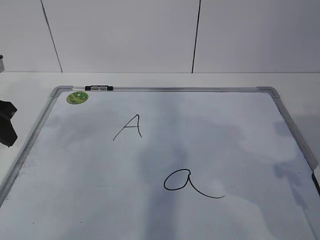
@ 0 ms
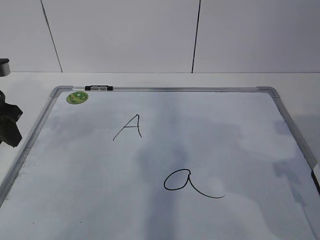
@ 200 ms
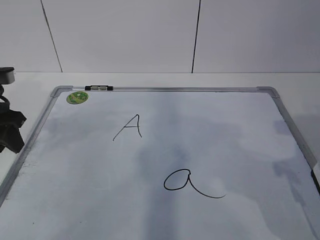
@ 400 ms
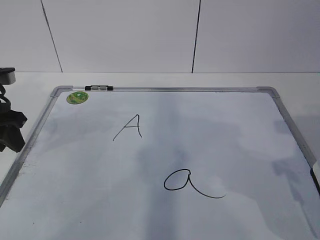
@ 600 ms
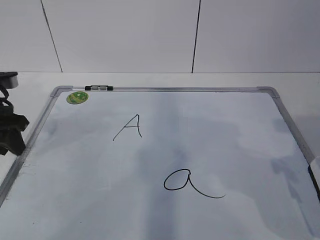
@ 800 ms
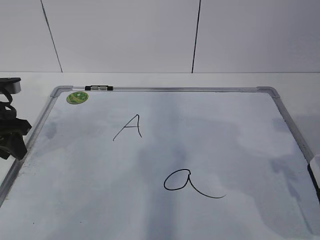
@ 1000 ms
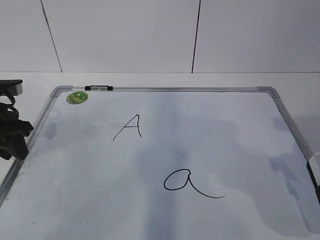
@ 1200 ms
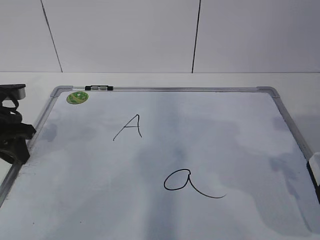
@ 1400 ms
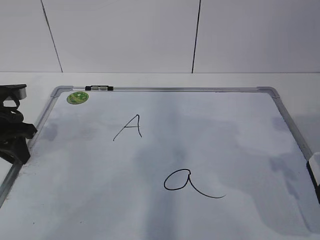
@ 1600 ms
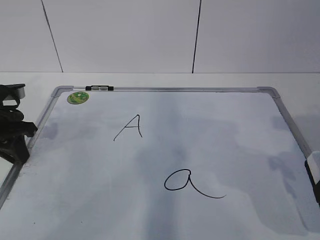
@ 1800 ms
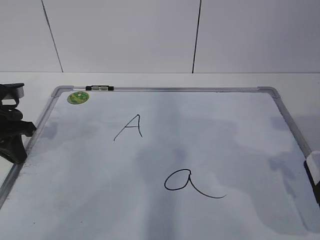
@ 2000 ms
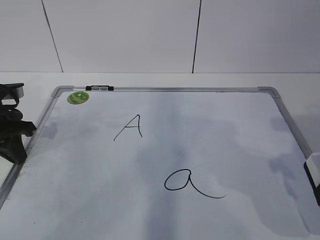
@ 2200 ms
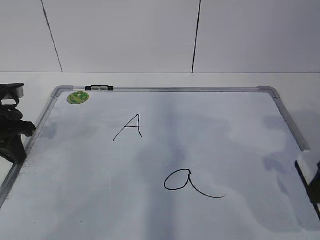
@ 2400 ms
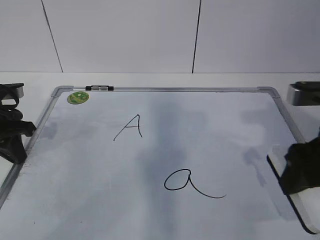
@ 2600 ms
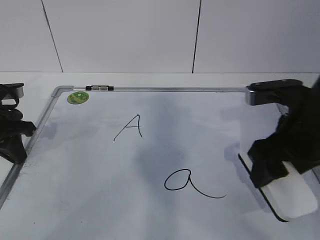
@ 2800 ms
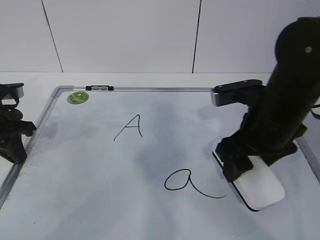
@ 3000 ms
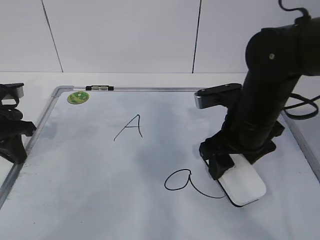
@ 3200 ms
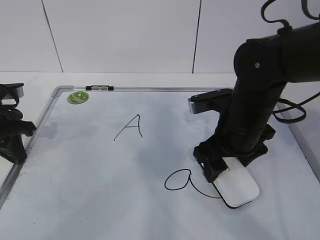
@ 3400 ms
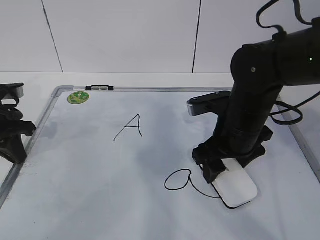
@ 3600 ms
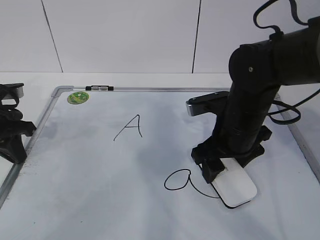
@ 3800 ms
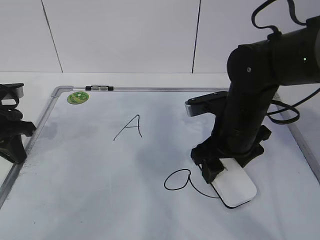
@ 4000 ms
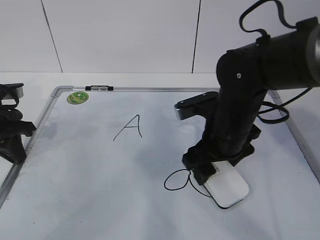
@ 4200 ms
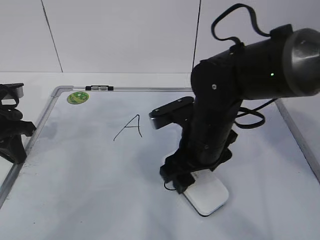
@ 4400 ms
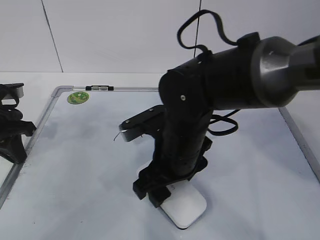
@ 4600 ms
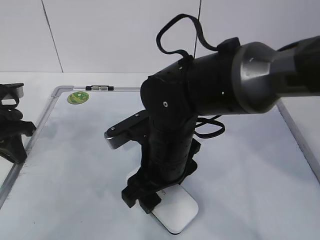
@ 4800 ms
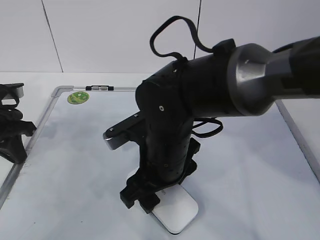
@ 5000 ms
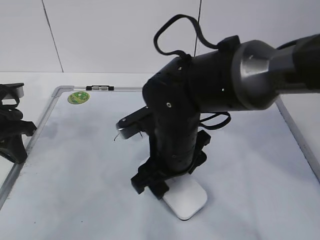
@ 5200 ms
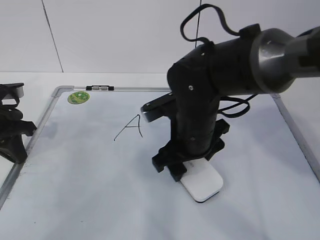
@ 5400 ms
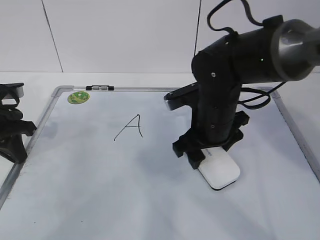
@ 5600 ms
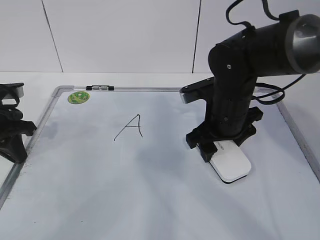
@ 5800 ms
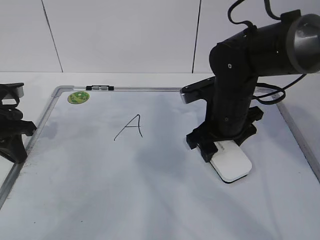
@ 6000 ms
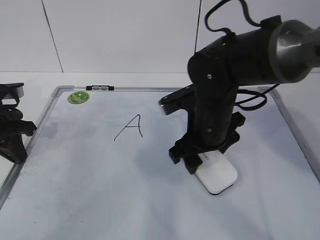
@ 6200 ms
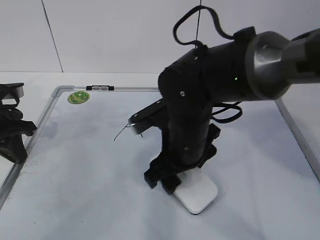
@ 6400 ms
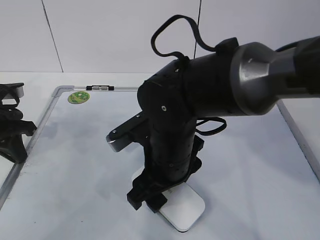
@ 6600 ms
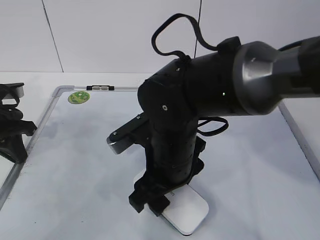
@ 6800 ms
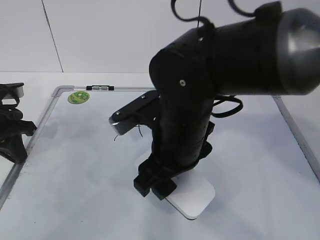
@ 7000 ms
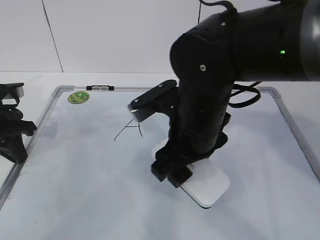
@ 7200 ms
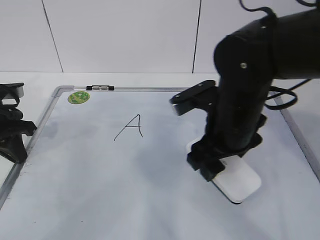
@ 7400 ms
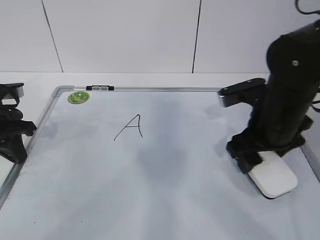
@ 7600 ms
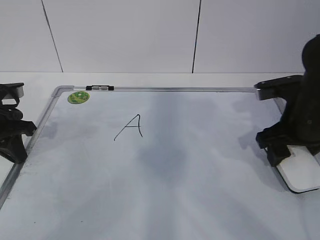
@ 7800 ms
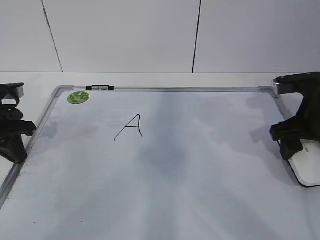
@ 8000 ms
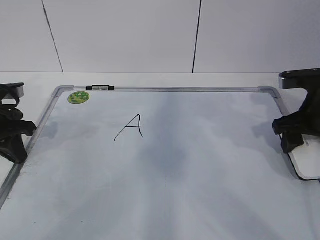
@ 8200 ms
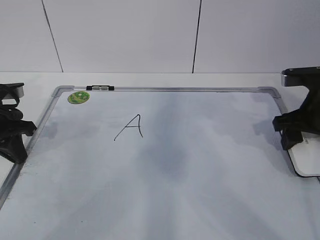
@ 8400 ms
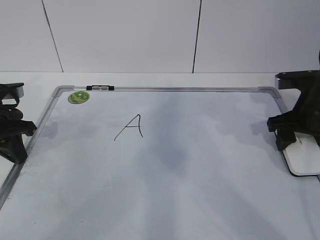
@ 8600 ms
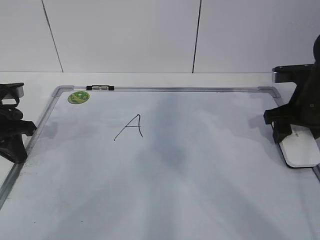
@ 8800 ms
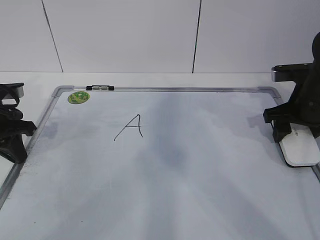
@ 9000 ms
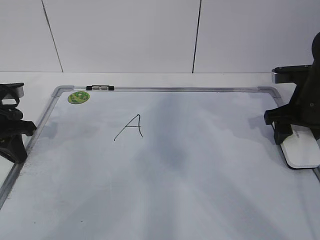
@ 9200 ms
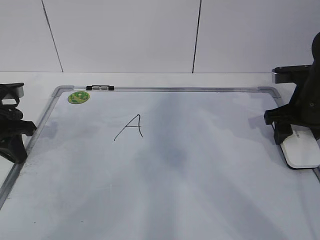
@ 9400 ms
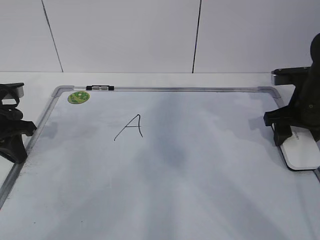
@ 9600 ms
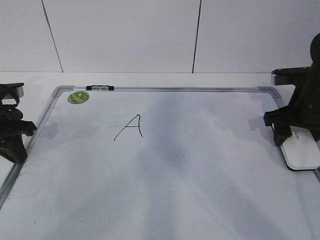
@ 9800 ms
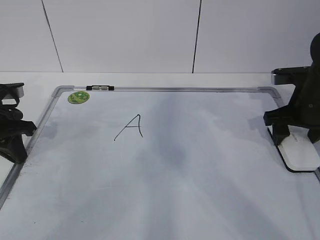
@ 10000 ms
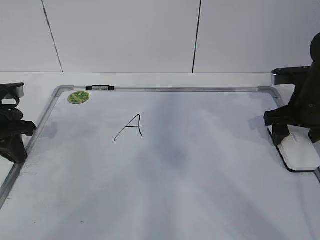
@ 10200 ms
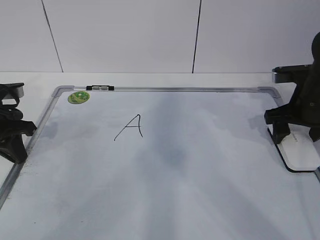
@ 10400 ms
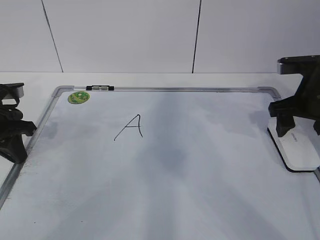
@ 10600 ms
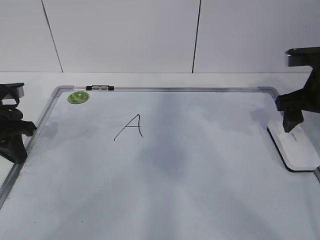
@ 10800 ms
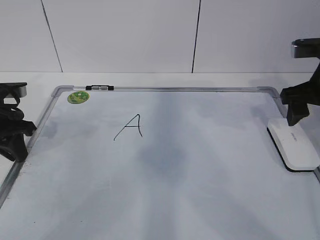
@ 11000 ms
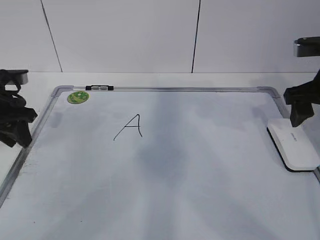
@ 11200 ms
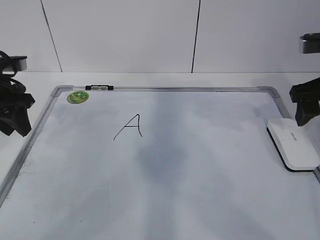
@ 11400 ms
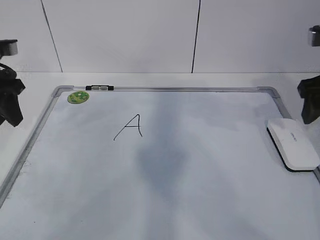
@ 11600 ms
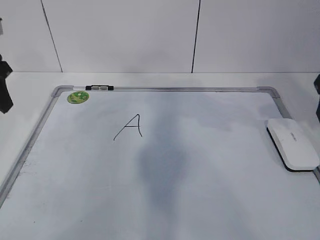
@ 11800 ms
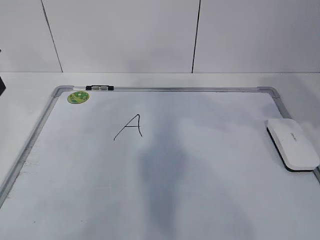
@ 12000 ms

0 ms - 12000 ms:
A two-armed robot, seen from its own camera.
Task of the whole recording: pick up the eraser on the blackboard and erase the letter "a".
Step, 0 ms - 3400 ms: Erase the letter a with your right hand.
Step, 3600 ms - 6200 ms: Put down the eraser with your right hand.
0 ms - 1600 ms: The left gripper moves downward, approximately 5 cm, and closes.
1600 ms - 3000 ms: The left gripper closes up. Meanwhile the right gripper goes approximately 15 cm to the left and forward.
3000 ms - 4400 ms: The right gripper is displaced to the left by approximately 10 cm.
4400 ms - 6000 ms: The right gripper moves forward, approximately 5 cm.
6000 ms - 7600 ms: The right gripper travels to the right by roughly 5 cm.
7600 ms - 9000 ms: The right gripper goes some 10 cm to the right and forward.
9000 ms - 10400 ms: The right gripper opens up.
10400 ms - 12000 ms: The left gripper travels upward by roughly 15 cm, and opens its fingers; the right gripper travels upward and backward by roughly 20 cm.

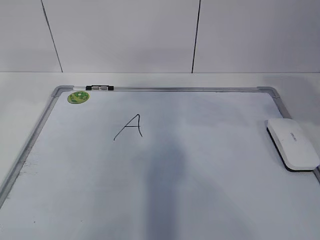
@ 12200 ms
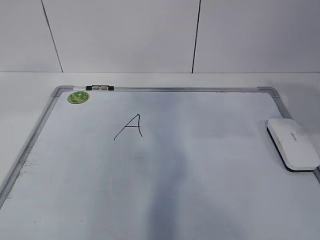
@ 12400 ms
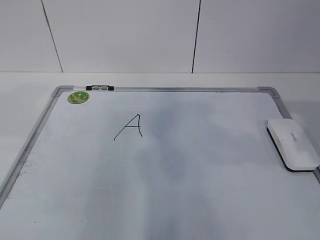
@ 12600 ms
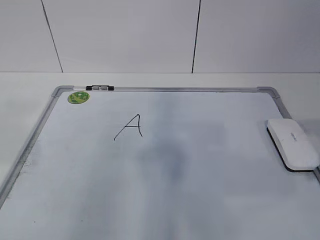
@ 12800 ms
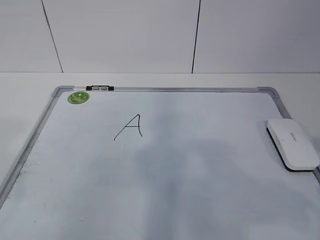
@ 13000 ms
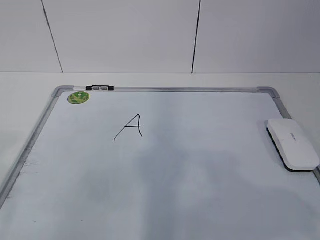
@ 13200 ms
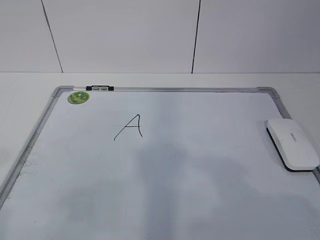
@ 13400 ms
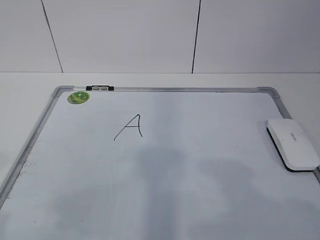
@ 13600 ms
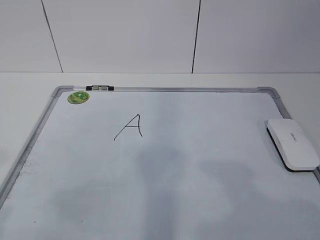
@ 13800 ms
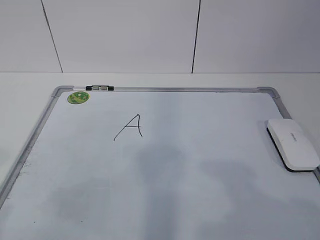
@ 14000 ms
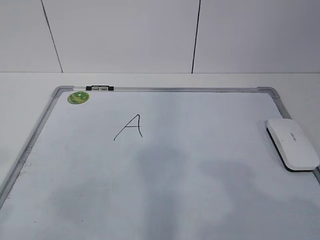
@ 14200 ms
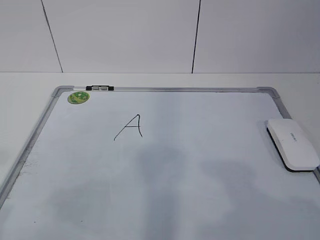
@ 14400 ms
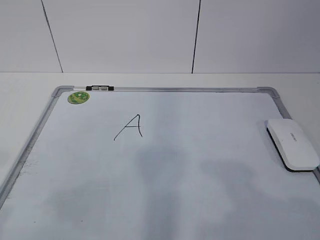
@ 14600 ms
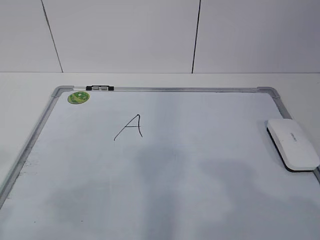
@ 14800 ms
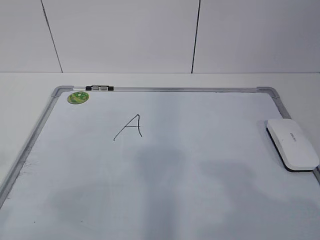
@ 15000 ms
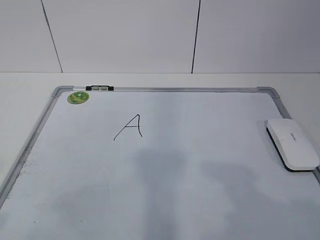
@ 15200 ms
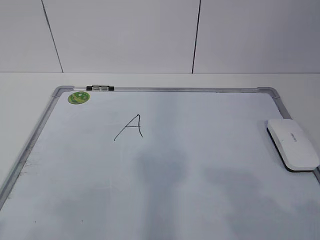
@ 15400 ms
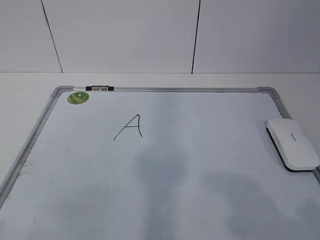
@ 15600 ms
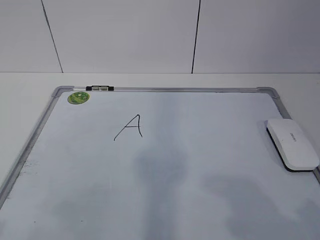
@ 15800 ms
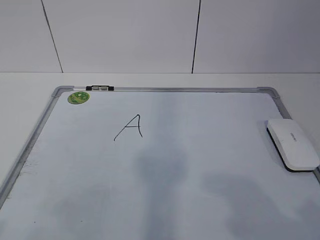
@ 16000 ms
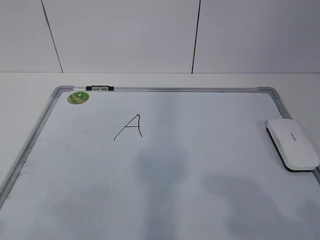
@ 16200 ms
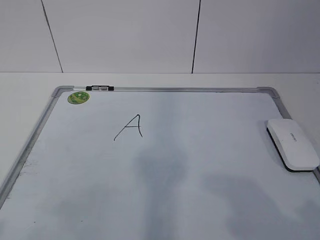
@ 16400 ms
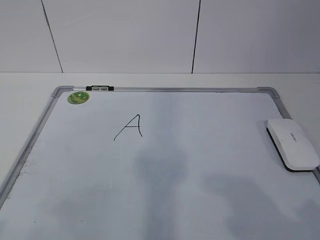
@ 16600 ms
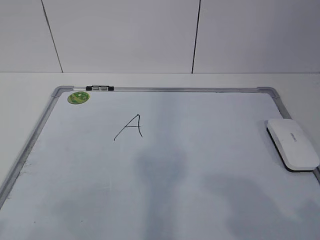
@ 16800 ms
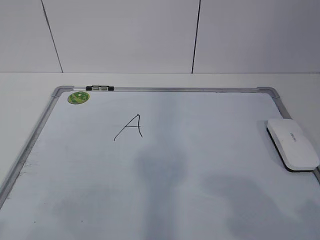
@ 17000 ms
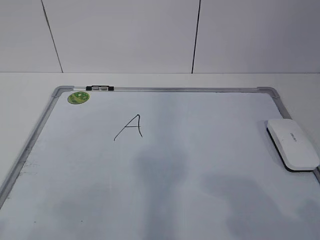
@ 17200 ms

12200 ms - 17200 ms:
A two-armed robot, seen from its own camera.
Task of the whole recording: pick up the eraser on the blackboard and erase the letter "a".
12200 ms - 13800 ms: The grippers both shift backward by about 20 cm.
15600 ms - 17200 ms: Both grippers stay put.
